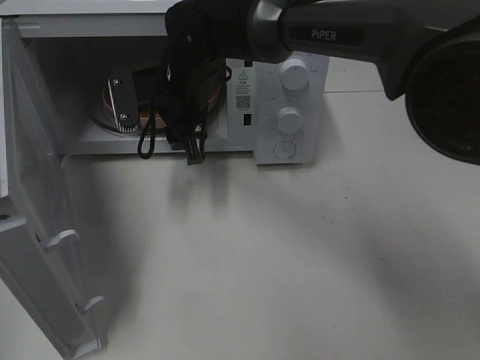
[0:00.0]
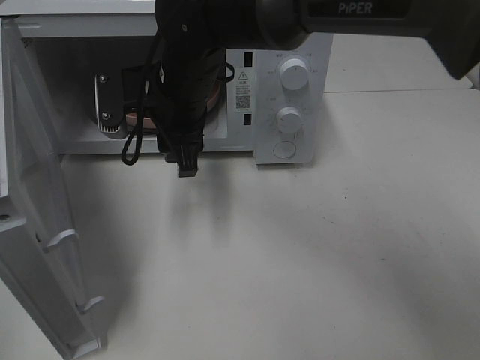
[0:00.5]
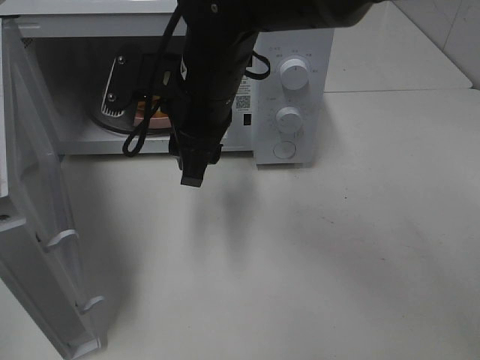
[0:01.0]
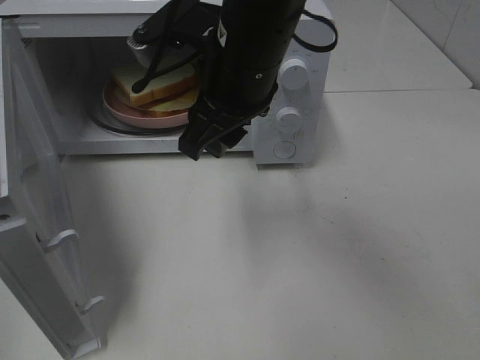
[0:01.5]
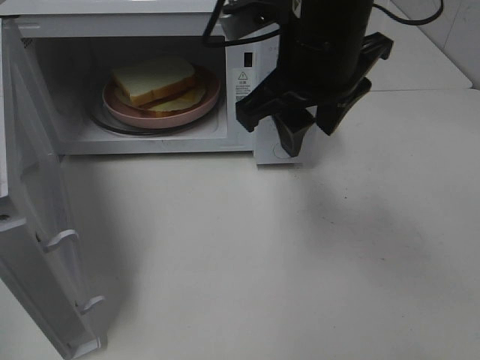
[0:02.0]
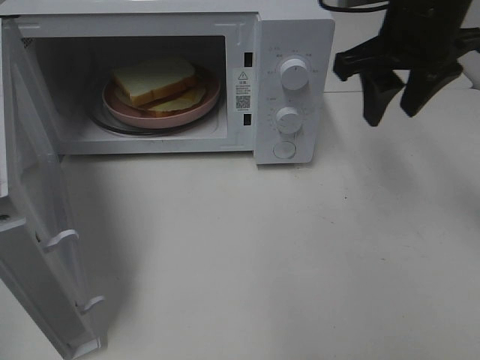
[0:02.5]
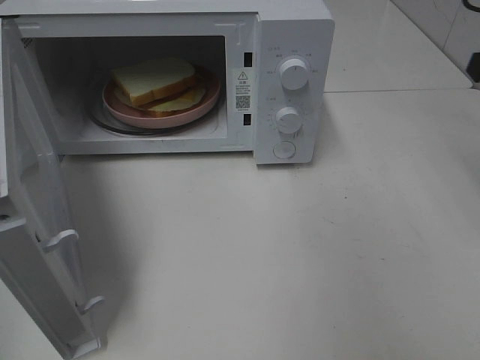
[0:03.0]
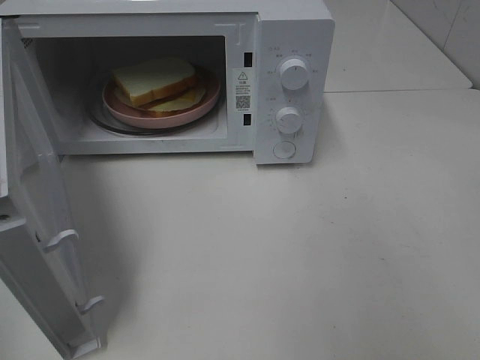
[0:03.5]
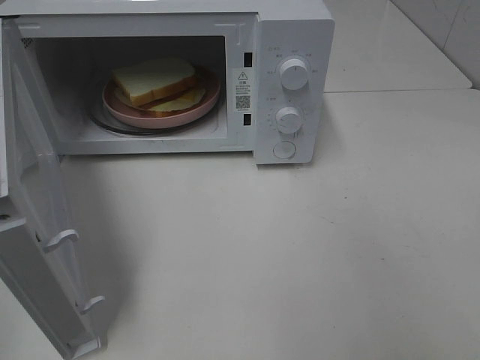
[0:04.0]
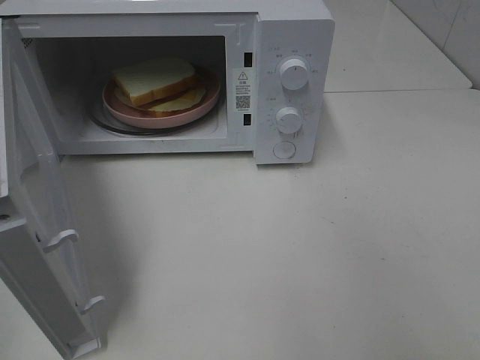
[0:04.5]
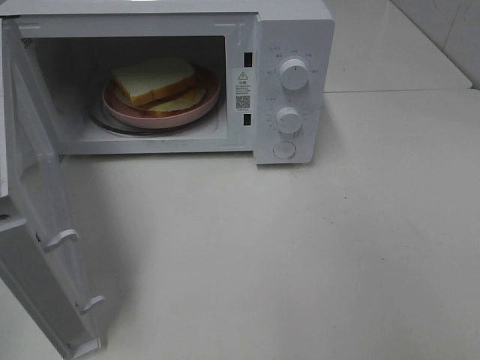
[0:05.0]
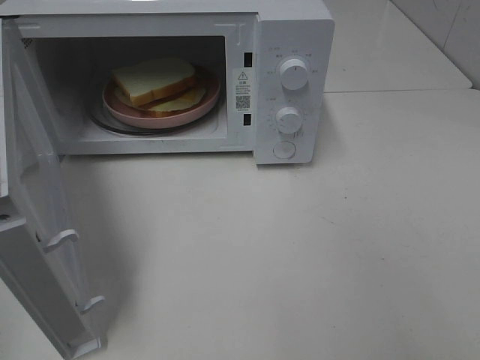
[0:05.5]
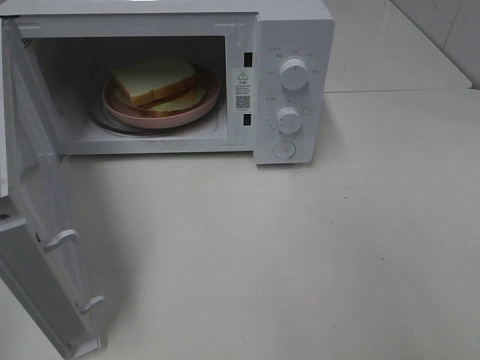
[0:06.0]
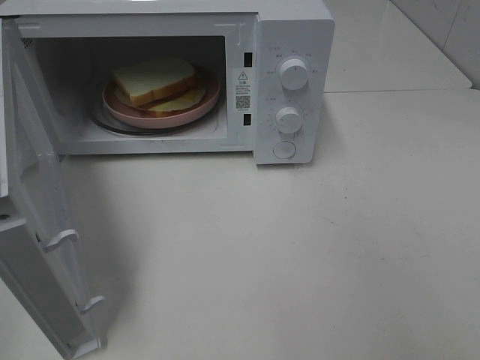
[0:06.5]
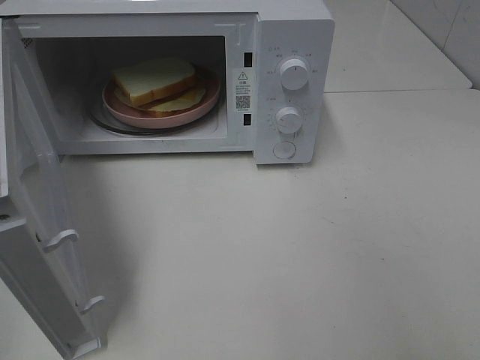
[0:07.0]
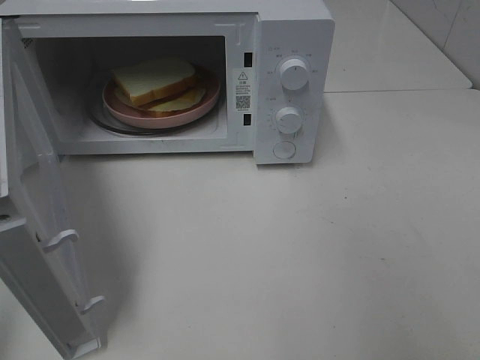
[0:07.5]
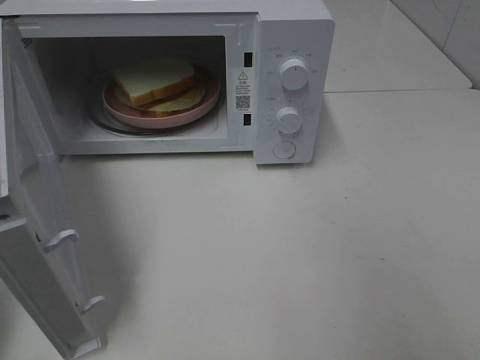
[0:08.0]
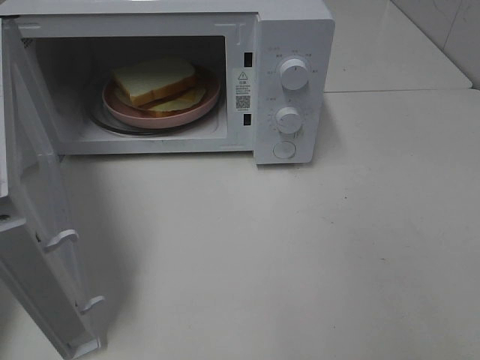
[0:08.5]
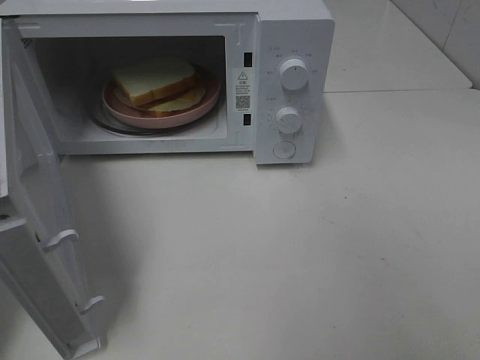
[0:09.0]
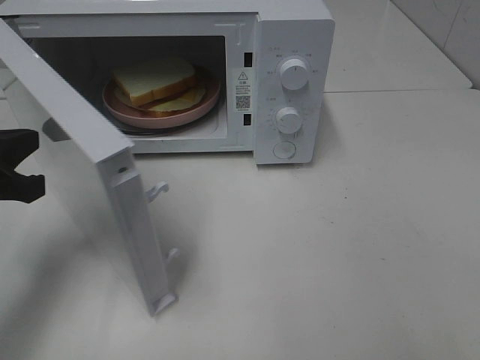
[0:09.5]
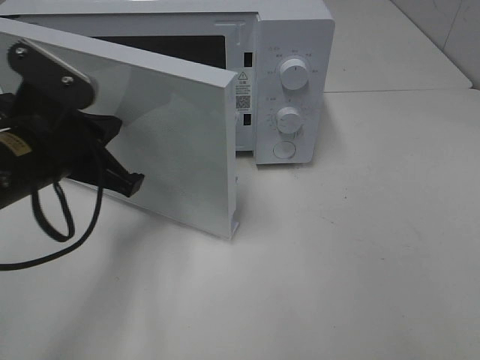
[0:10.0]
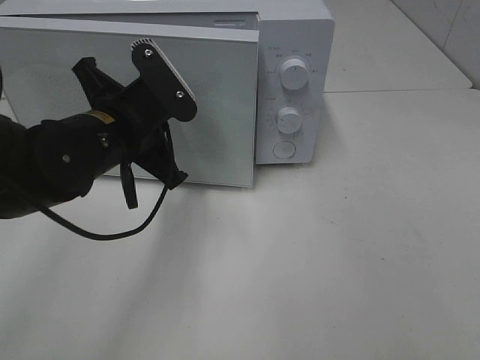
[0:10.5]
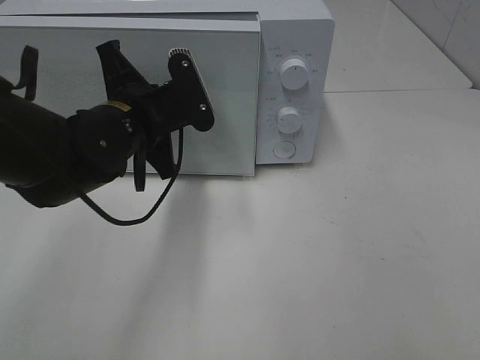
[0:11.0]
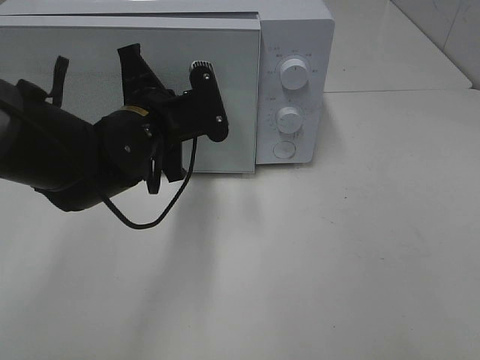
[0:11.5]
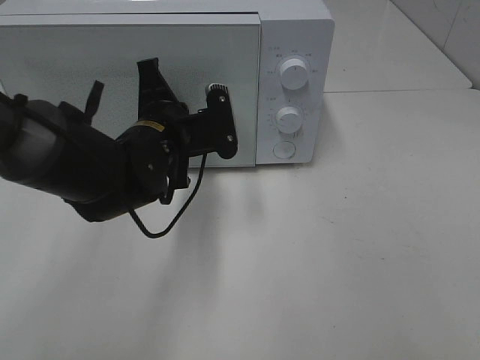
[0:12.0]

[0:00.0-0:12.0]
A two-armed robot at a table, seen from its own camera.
Task of the whole recording: Heat Sandwich.
0:00.0 to 0:02.0: The right gripper goes about 20 cm to the right, upward and backward.
0:02.0 to 0:04.0: The right gripper travels to the right and backward by roughly 30 cm.
0:08.0 to 0:10.0: The left gripper travels to the right, forward and downward by roughly 25 cm.
0:10.0 to 0:12.0: The left gripper goes some 10 cm to the right and forward.

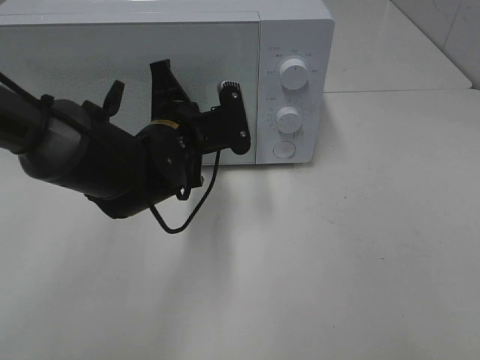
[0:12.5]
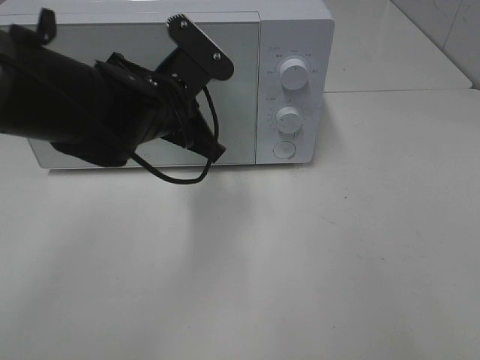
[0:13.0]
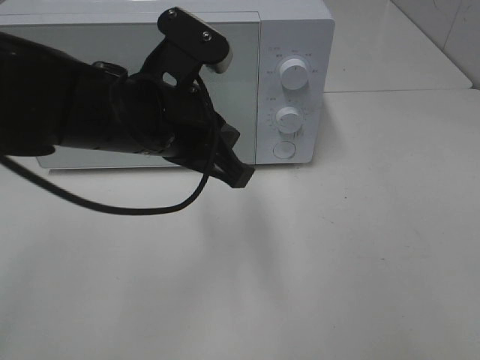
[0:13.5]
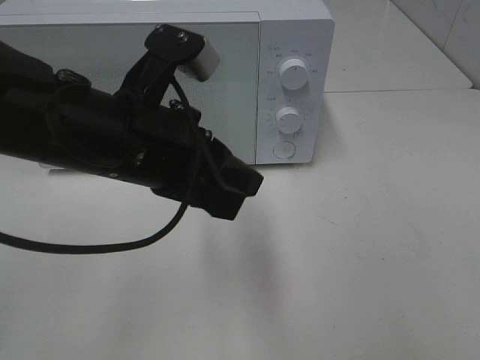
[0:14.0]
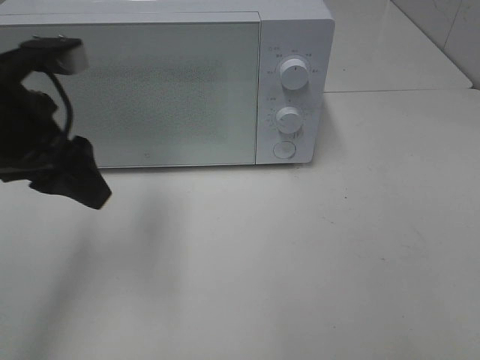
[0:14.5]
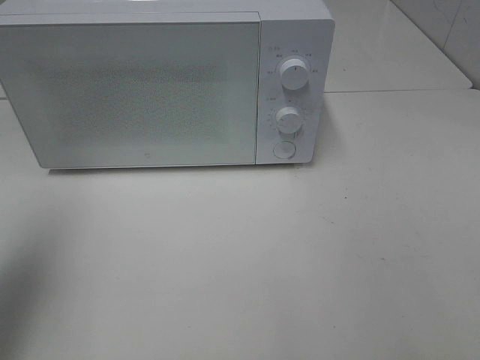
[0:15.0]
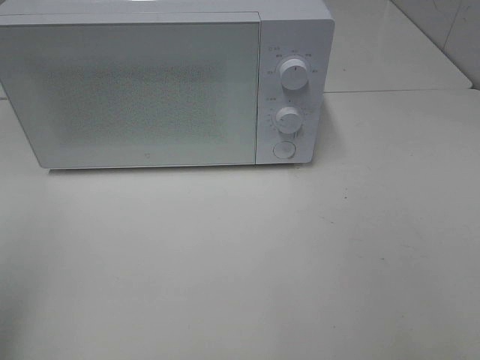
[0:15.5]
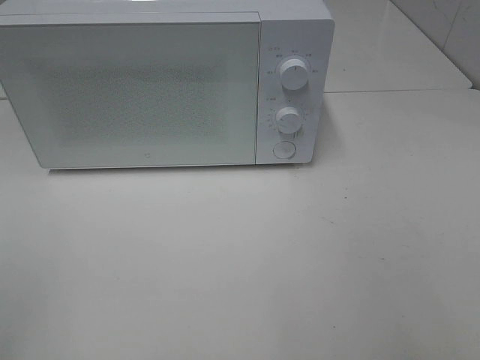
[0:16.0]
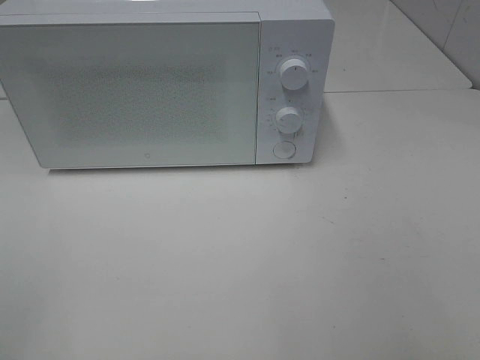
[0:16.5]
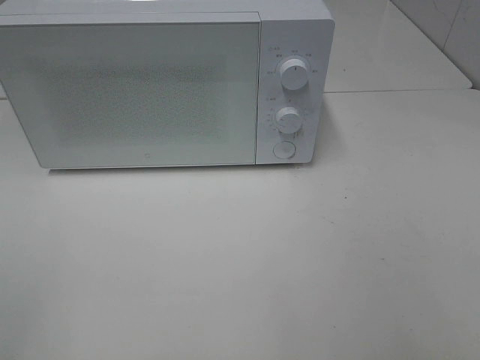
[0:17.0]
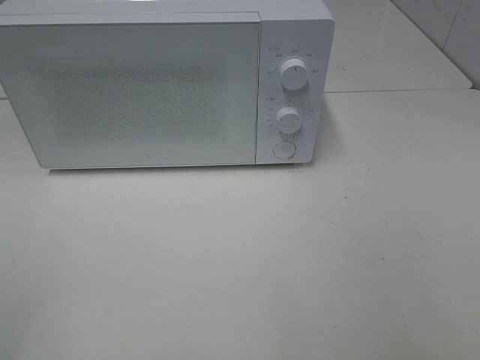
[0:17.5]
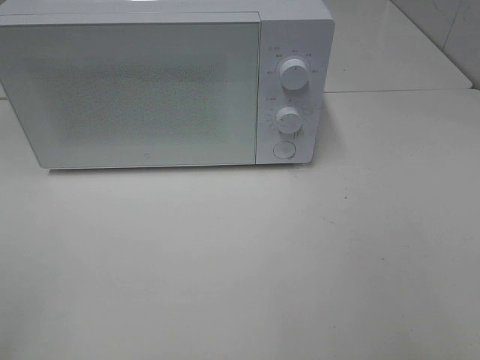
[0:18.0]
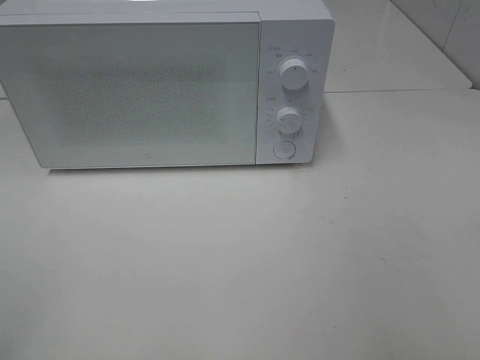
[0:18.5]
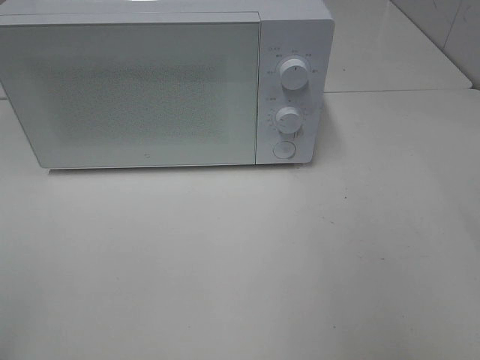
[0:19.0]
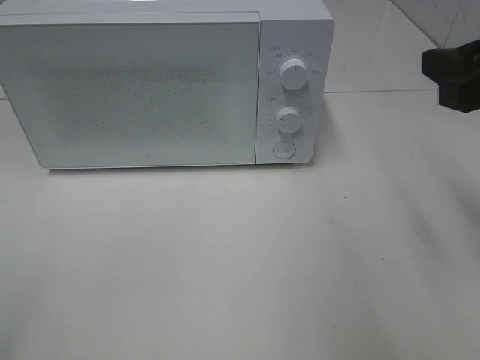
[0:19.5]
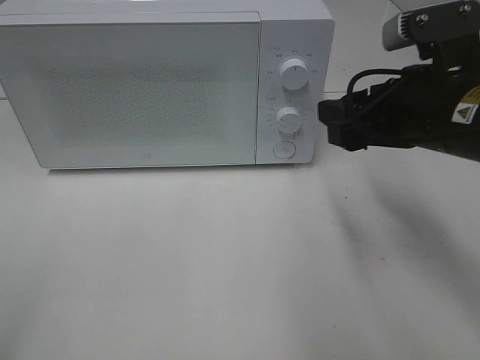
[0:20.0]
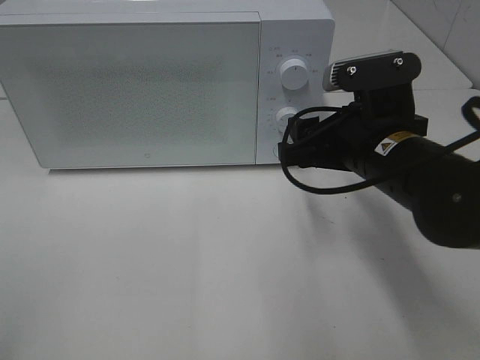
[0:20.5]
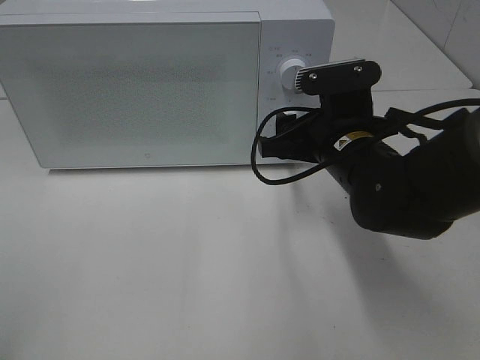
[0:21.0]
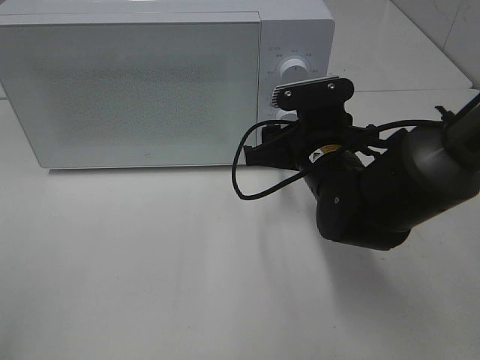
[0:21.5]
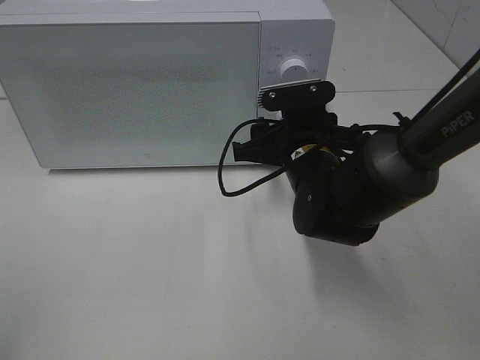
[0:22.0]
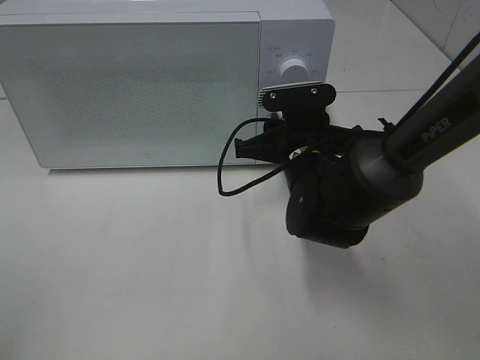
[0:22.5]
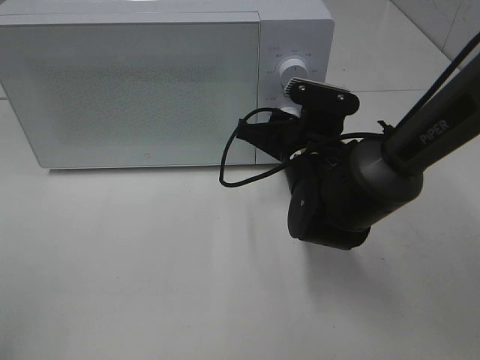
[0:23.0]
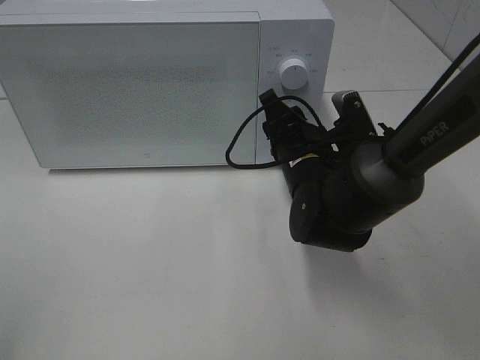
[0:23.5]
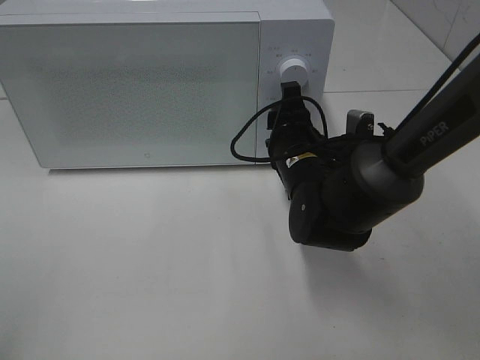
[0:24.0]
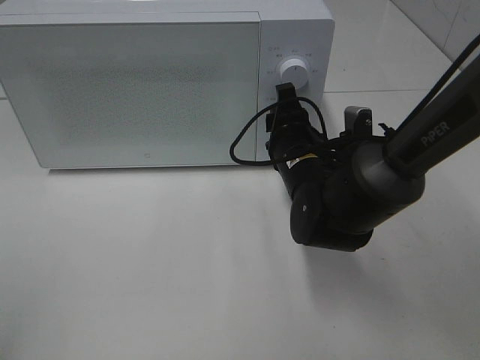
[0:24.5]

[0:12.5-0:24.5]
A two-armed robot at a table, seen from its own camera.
Task of the whole recording: Heat Sandwich.
0:12.5 to 0:14.5: The left gripper moves to the left, upward and backward, roughly 20 cm, and opens up.
0:14.5 to 0:16.5: The left gripper is displaced backward and to the left by about 30 cm.
0:18.5 to 0:20.5: The right gripper is displaced forward, to the left and downward by some 30 cm.
0:20.5 to 0:22.5: The right gripper is displaced forward, downward and to the left by some 10 cm, and closes its fingers.

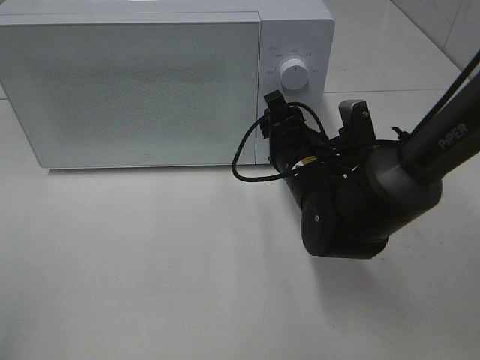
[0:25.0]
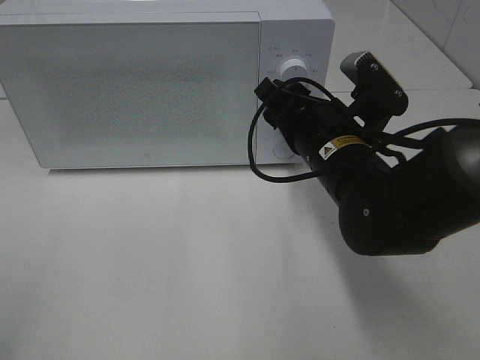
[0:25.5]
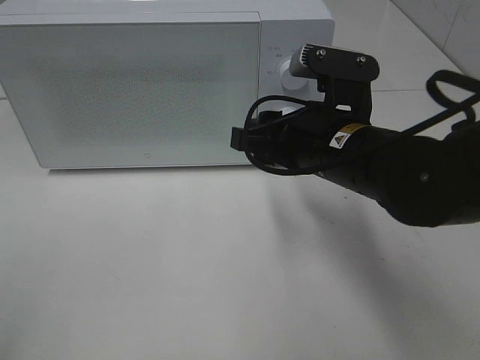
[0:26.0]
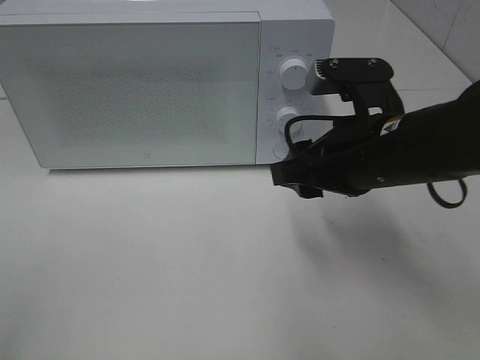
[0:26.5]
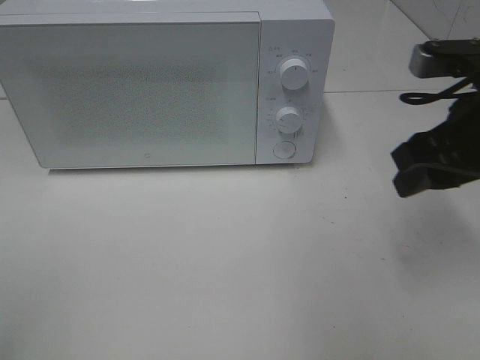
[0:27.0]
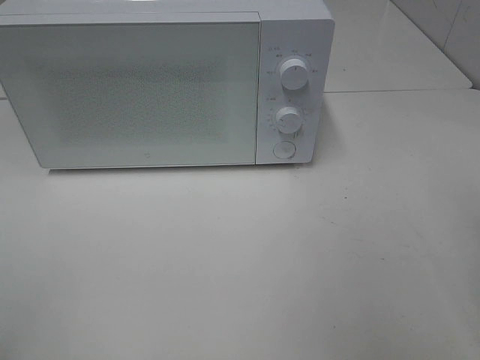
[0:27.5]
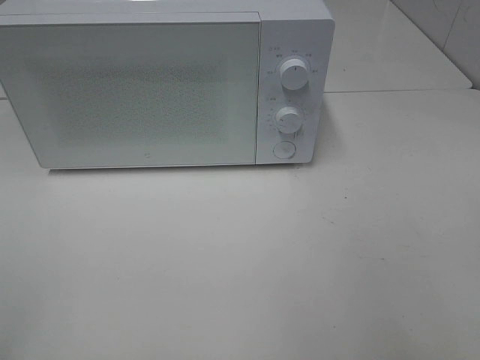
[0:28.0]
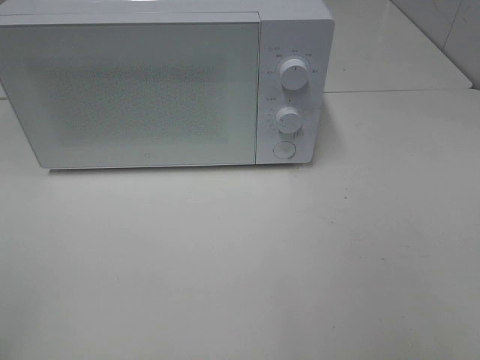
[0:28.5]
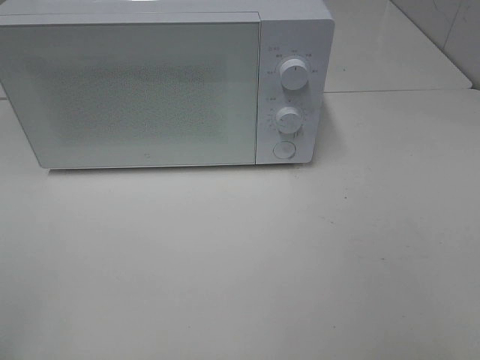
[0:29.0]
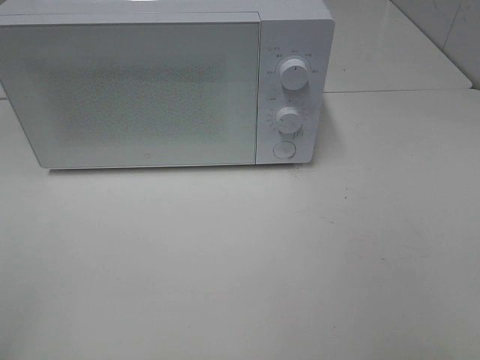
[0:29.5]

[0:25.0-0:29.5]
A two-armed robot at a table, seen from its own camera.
Task of the whole recording: Heat Sandwich.
0:25.0 to 0:27.0: The right gripper travels to the right, upward and backward by some 20 cm.
0:27.0 to 0:29.5: The right gripper moves backward, about 20 cm.
